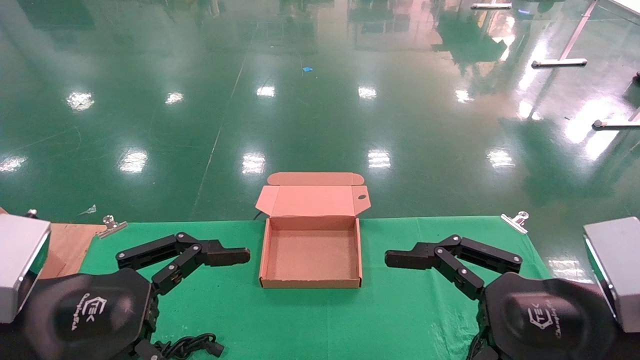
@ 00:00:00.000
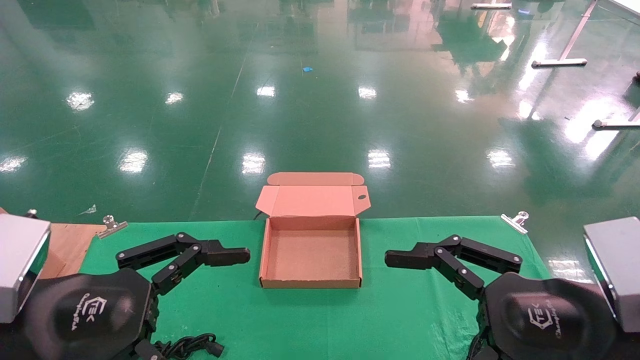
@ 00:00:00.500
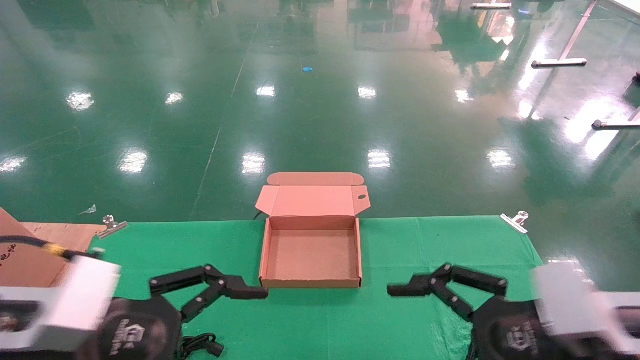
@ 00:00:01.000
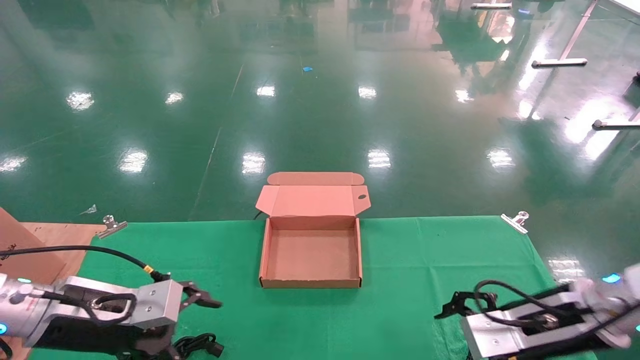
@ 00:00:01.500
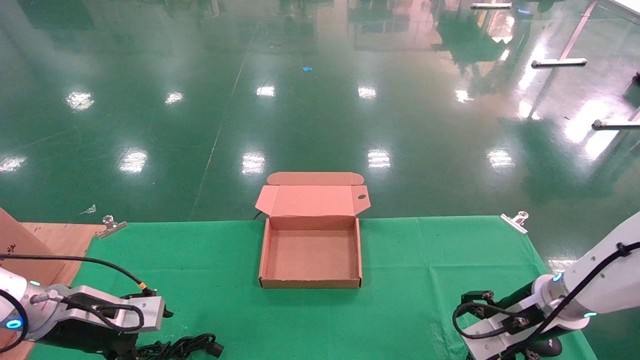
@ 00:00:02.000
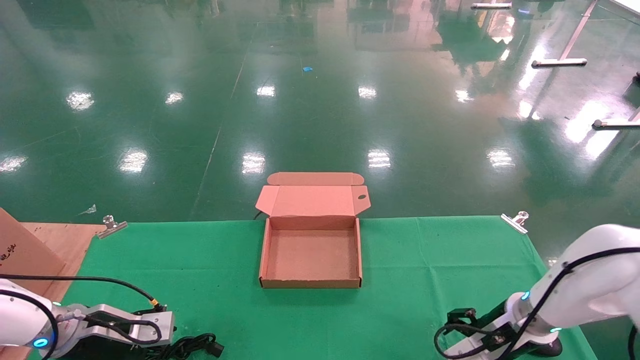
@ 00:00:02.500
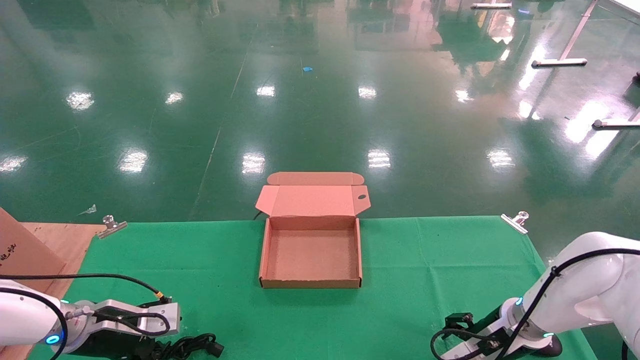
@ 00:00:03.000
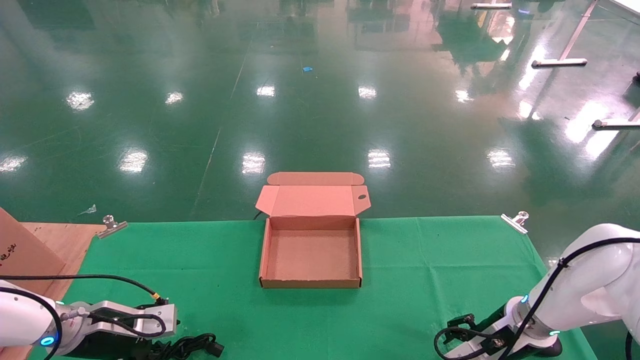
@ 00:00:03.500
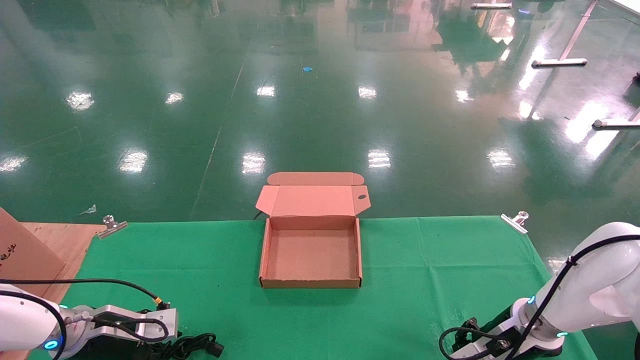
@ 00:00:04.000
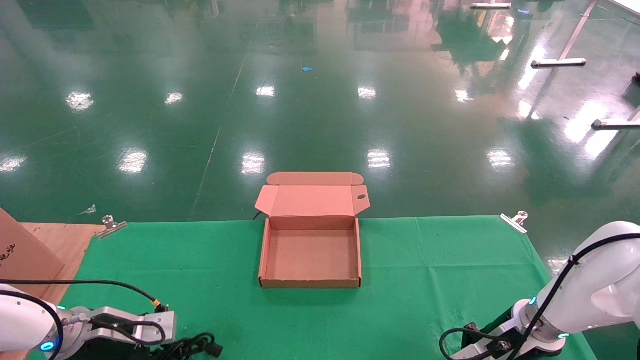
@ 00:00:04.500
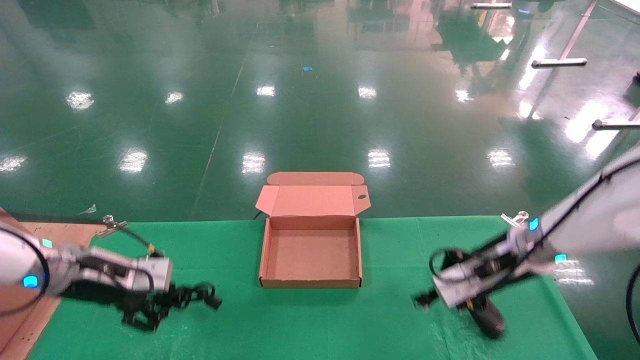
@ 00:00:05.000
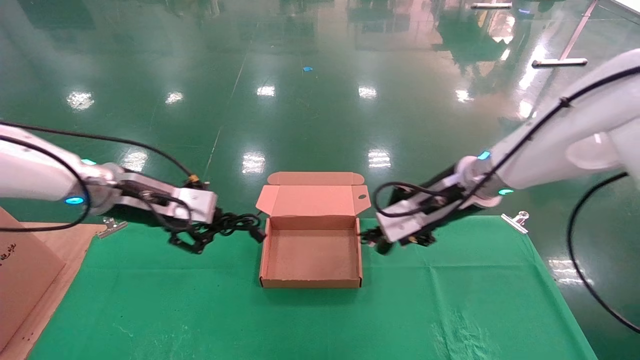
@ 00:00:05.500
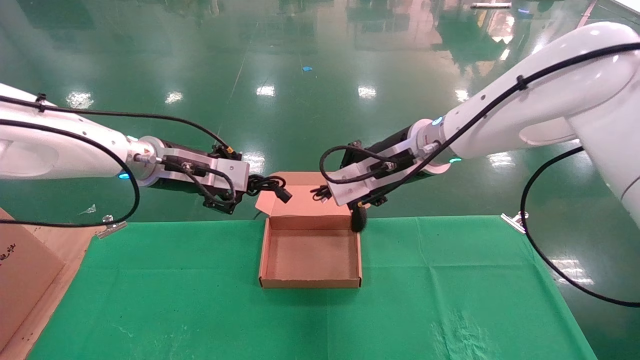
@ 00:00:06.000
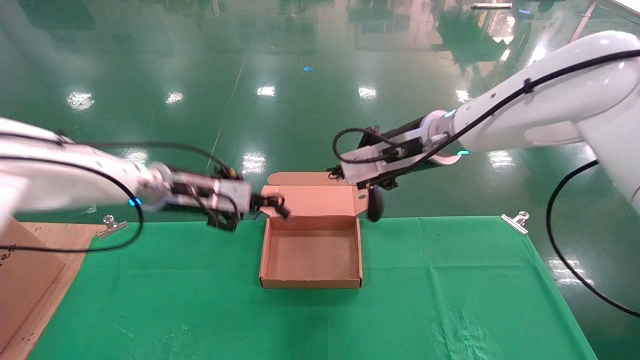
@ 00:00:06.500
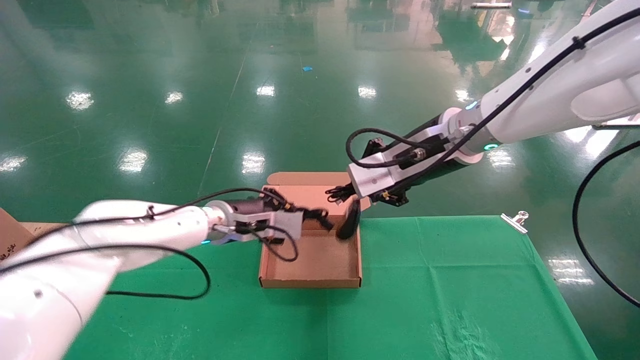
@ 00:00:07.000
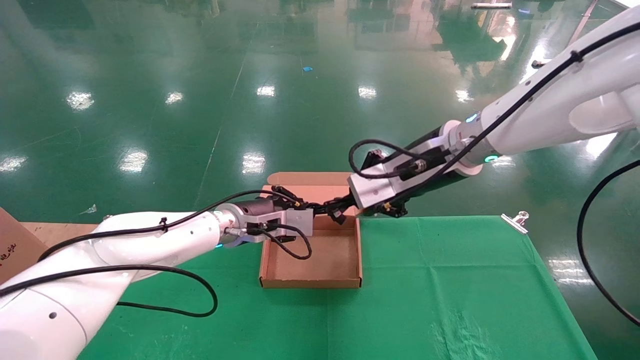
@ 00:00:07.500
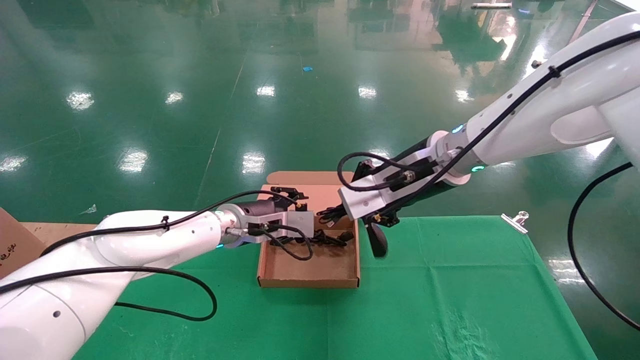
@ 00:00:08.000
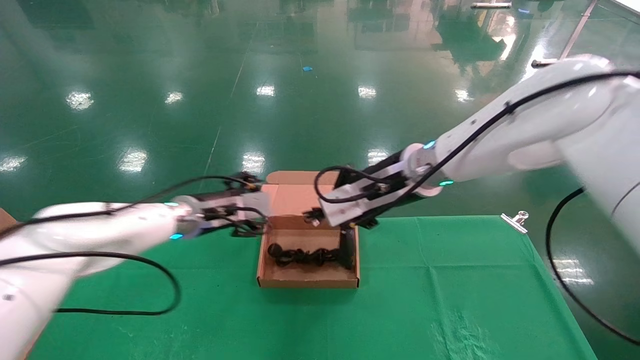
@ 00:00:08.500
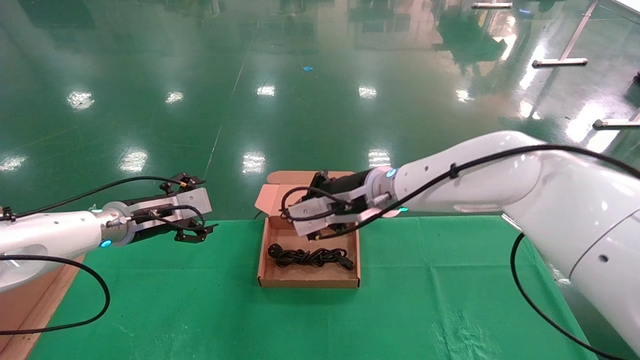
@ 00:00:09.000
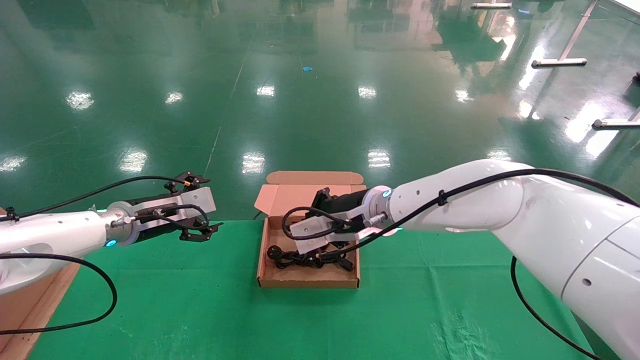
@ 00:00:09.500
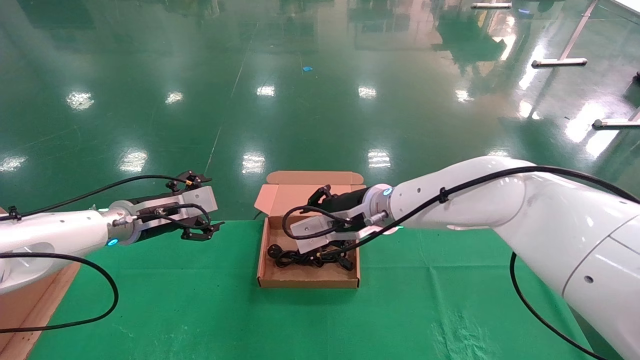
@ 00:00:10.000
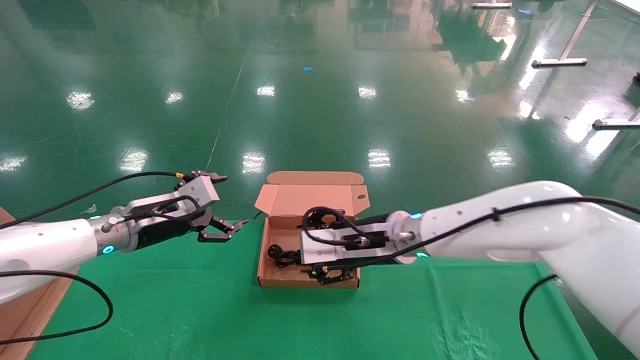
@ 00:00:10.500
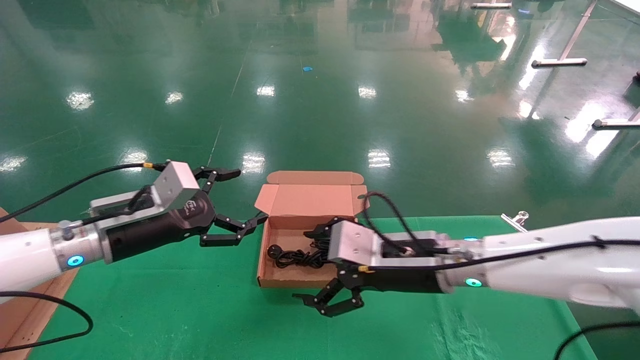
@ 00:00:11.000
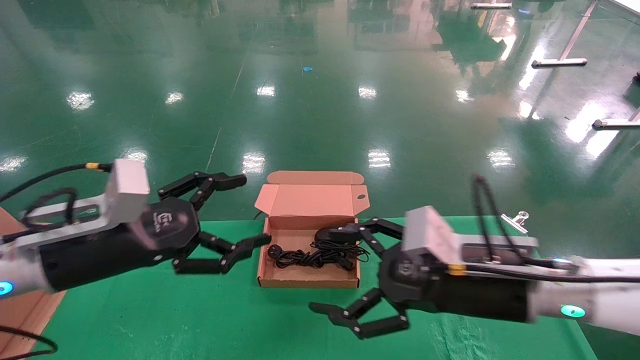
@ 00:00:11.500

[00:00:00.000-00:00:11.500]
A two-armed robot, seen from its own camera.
Step, 00:00:01.500 to 00:00:04.500: Grab and lift both the mouse and power cord from the accessory packaging area at the same time.
Step, 00:00:05.000 to 00:00:10.000: Place the mouse and power cord into the box.
00:00:00.000 to 00:00:02.000: The left gripper is displaced forward, downward and to the left by approximately 25 cm. Meanwhile the right gripper shifts some 25 cm forward and downward.
00:00:02.000 to 00:00:04.000: The right gripper changes place by roughly 5 cm, and closes up. The left gripper is displaced downward by some 5 cm, and closes its fingers.
00:00:04.000 to 00:00:06.000: The left gripper travels upward and to the right by approximately 25 cm, and closes, while the right gripper heads upward and to the left, covering roughly 30 cm, and closes up.
00:00:06.000 to 00:00:07.500: The left gripper shifts some 15 cm downward and to the right.
00:00:07.500 to 00:00:09.500: The left gripper moves to the left, roughly 15 cm, and opens up; the right gripper heads downward and to the left, covering some 15 cm.
00:00:09.500 to 00:00:11.500: The left gripper goes about 20 cm backward, while the right gripper moves backward and to the right, some 20 cm, and opens its fingers.

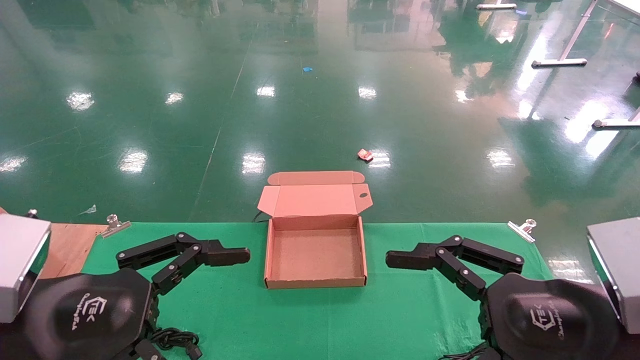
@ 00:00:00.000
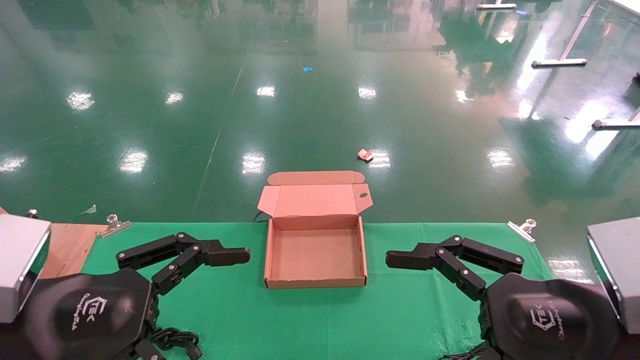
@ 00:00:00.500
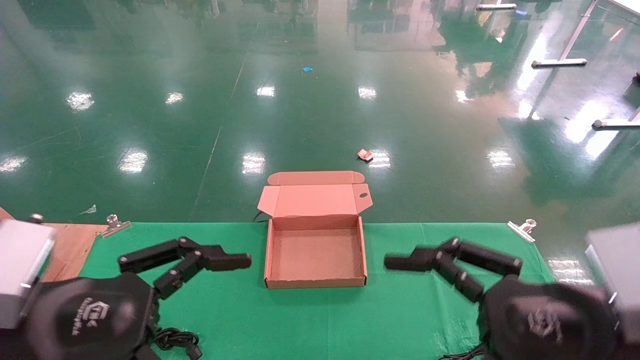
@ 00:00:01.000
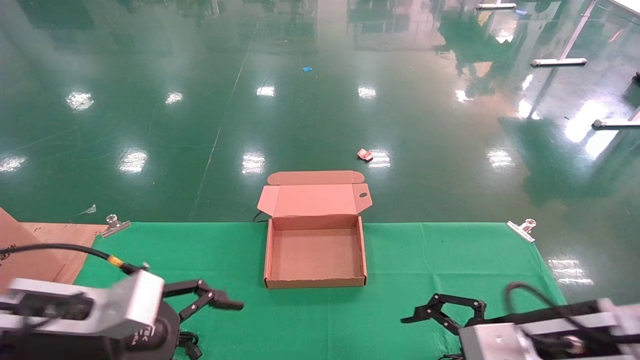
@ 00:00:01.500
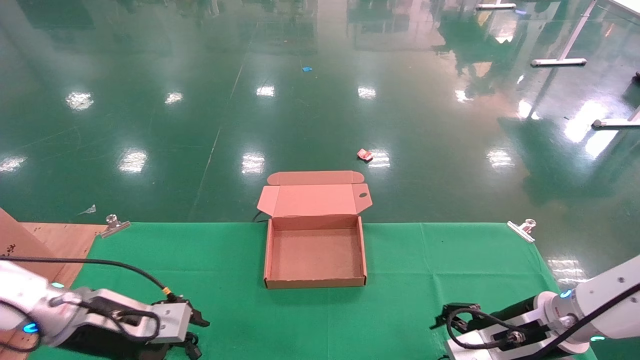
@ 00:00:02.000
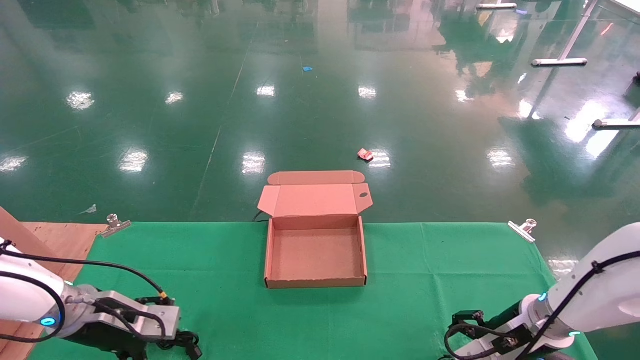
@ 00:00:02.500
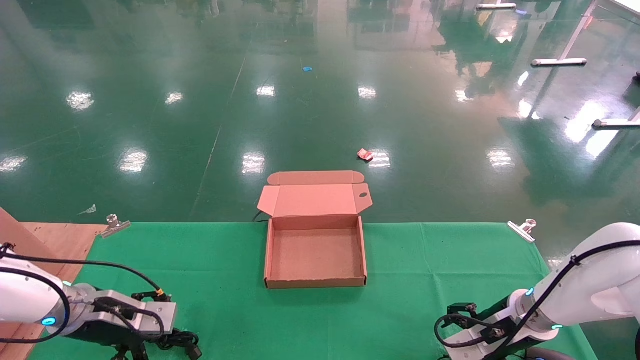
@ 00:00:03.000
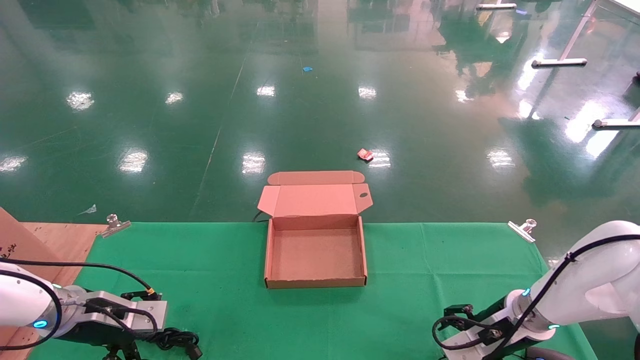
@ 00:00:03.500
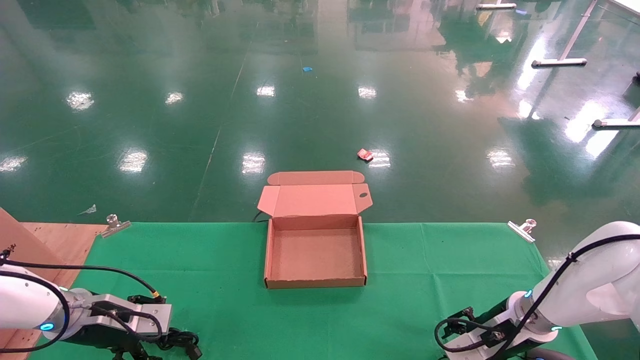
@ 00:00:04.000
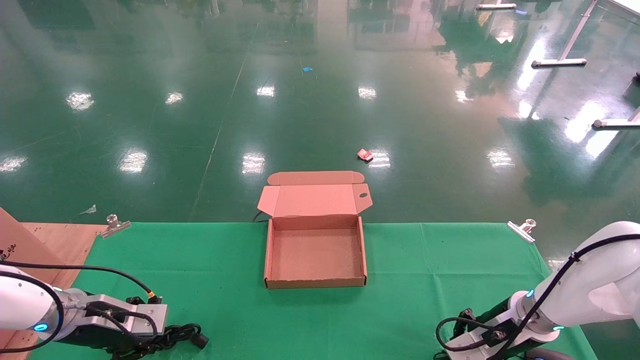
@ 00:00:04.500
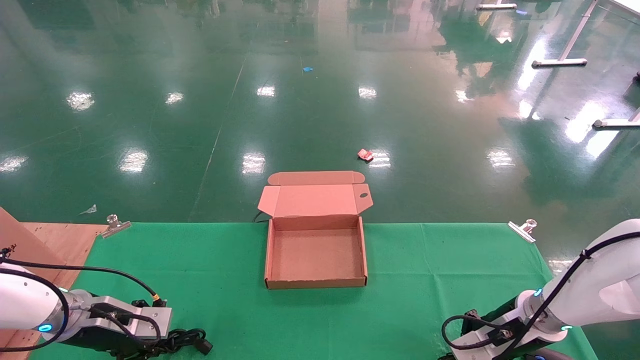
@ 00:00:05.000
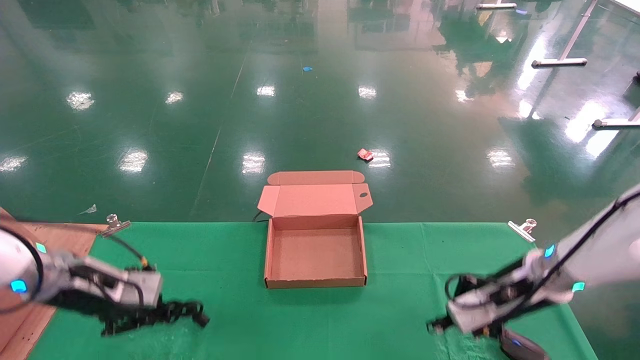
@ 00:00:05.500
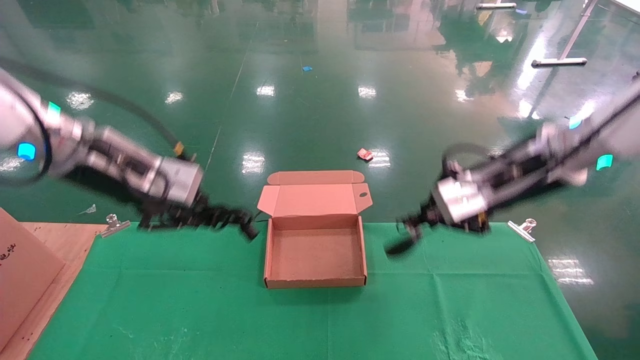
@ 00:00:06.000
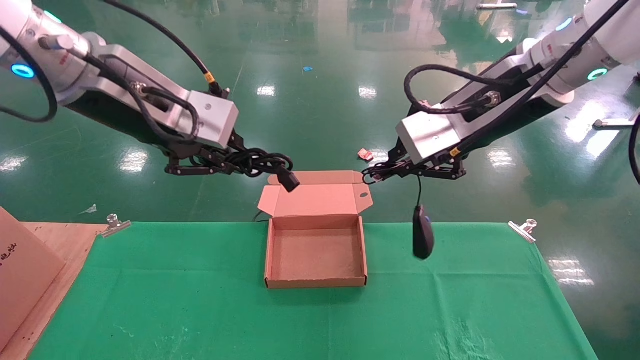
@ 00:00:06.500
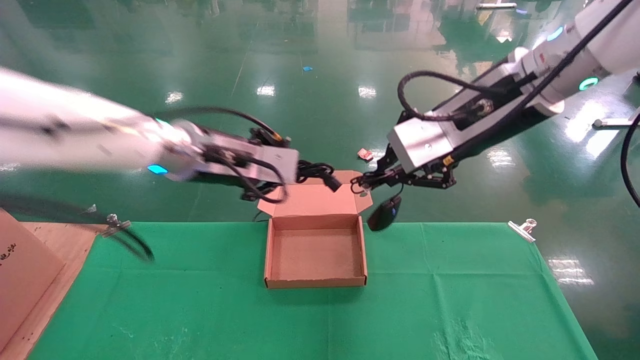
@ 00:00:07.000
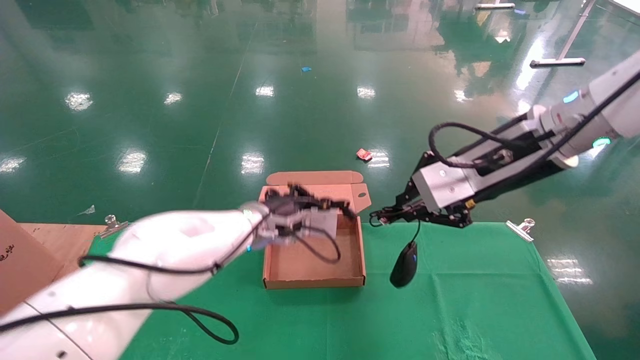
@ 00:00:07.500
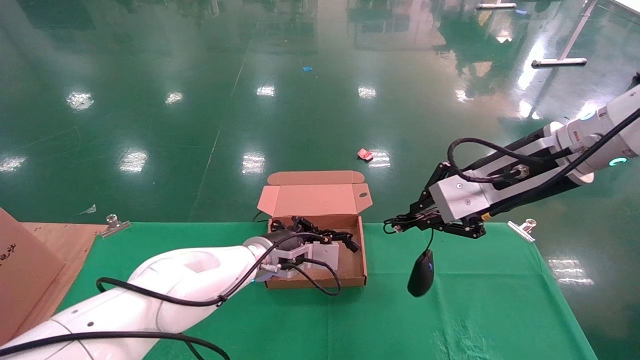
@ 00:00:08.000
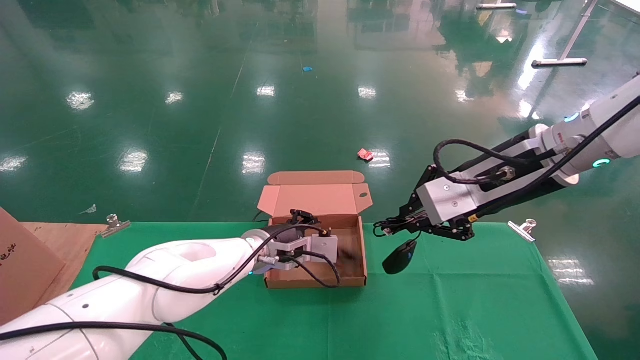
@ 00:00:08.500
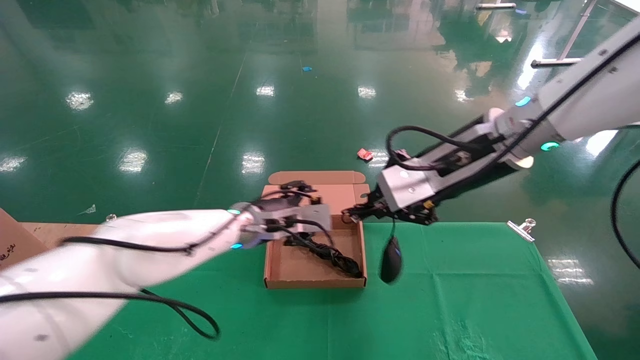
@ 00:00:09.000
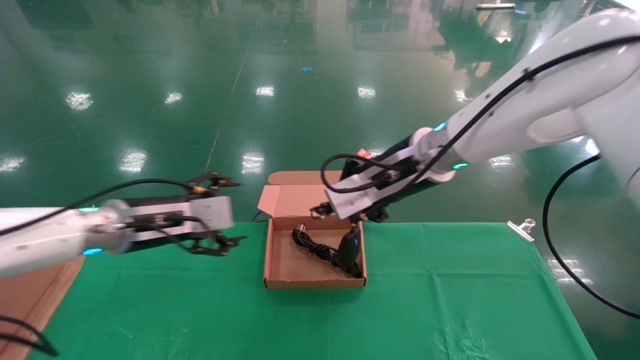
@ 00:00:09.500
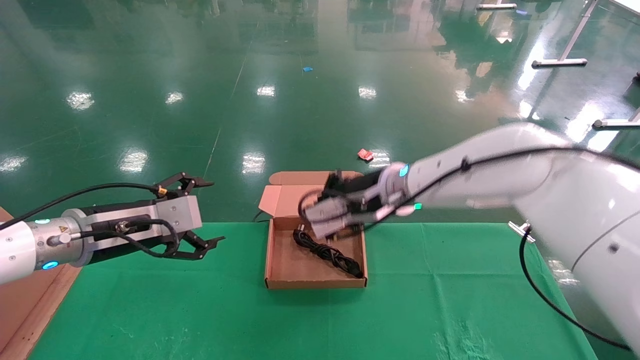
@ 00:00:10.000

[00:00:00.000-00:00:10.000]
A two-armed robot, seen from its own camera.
Step, 00:00:02.000 to 00:00:05.000: Grab and lift both the mouse and power cord from the accessory packaging area at the same time.
00:00:00.000 to 00:00:02.000: Both grippers travel together forward and downward, approximately 20 cm.
00:00:02.000 to 00:00:04.000: The right gripper goes some 5 cm forward, while the left gripper heads to the left and forward, covering roughly 10 cm.
00:00:04.000 to 00:00:06.000: The grippers both shift upward by roughly 25 cm. The right gripper closes. The left gripper closes up.
00:00:06.000 to 00:00:08.000: The left gripper is displaced downward, to the right and forward by about 30 cm. The right gripper reaches roughly 10 cm upward, then returns.
00:00:08.000 to 00:00:10.000: The right gripper is displaced to the left, forward and downward by some 20 cm. The left gripper moves to the left, backward and upward, some 25 cm, and opens.
